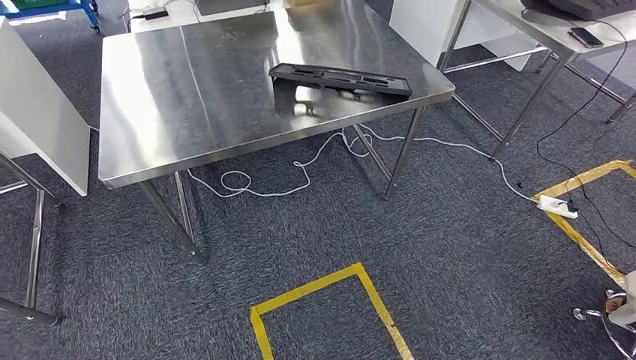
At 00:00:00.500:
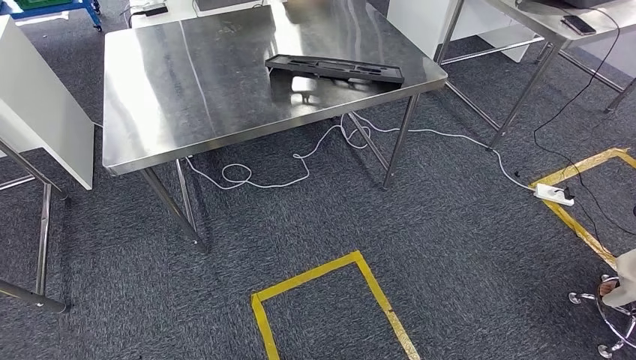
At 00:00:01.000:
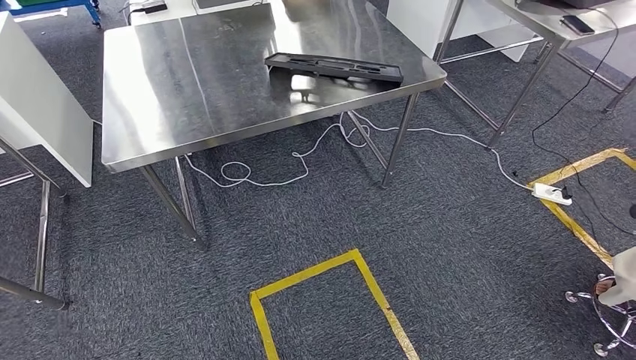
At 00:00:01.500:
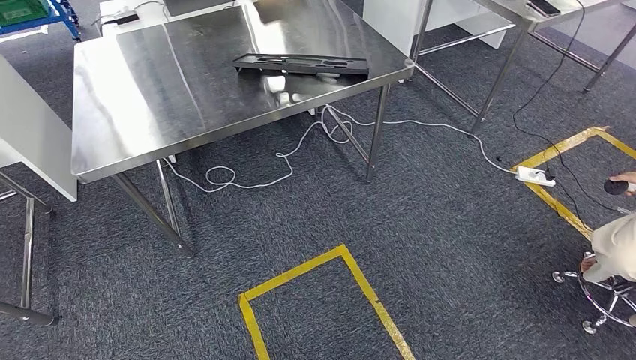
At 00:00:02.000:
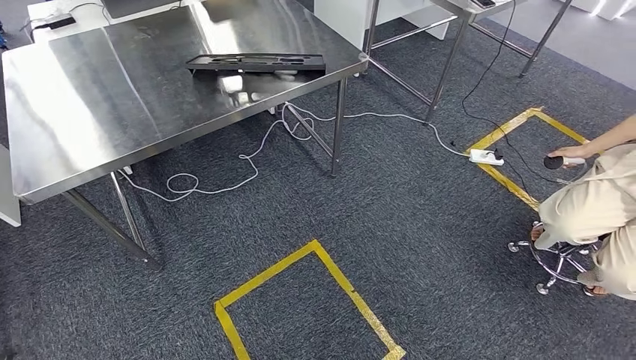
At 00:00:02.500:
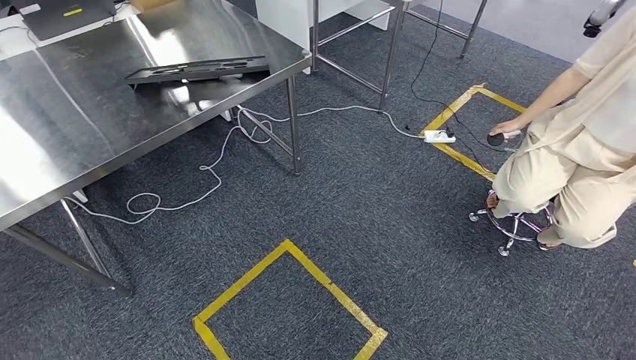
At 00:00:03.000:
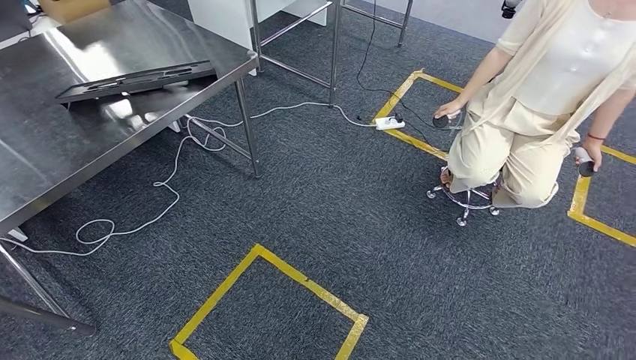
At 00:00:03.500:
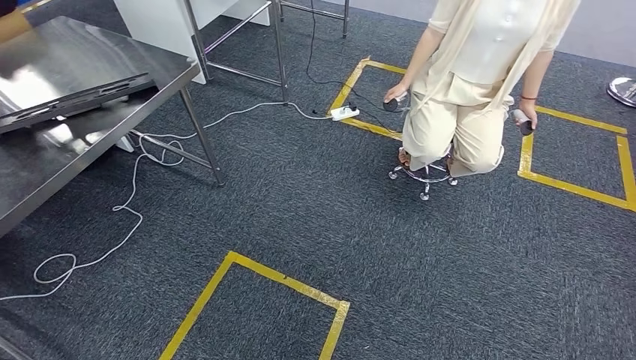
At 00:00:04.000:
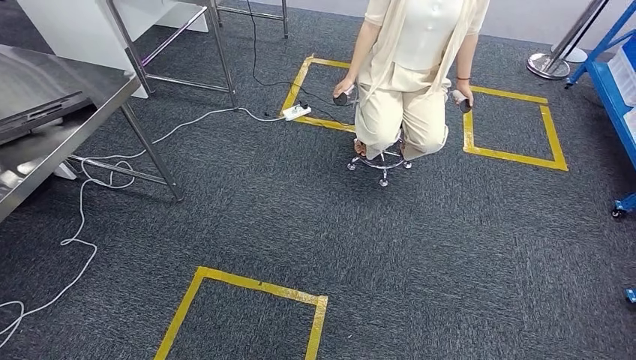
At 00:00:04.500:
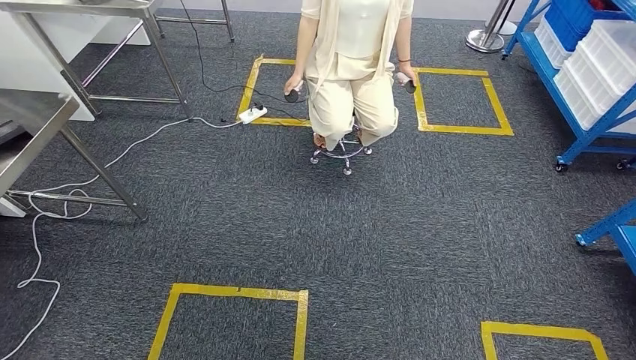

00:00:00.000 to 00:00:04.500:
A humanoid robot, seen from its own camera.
Step, 00:00:01.000 to 00:00:04.500: Return to the initial position at the shelf.
